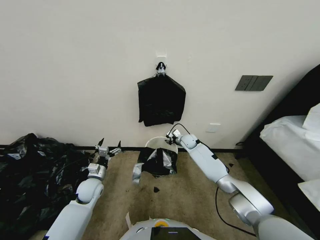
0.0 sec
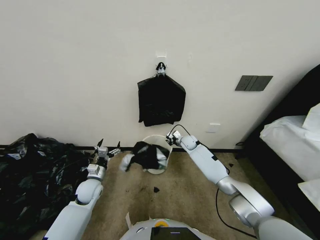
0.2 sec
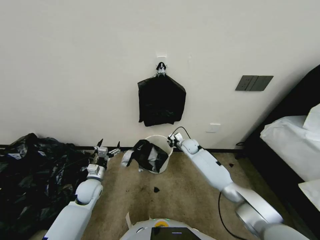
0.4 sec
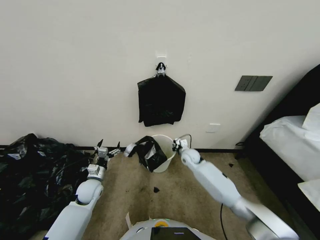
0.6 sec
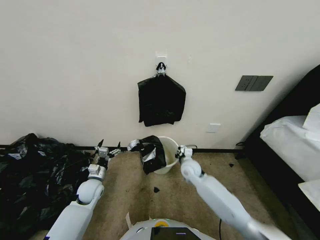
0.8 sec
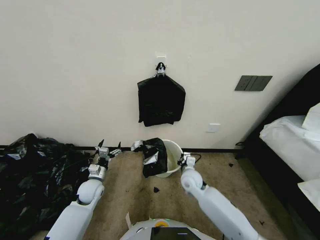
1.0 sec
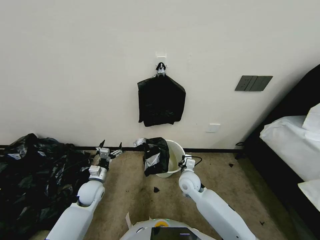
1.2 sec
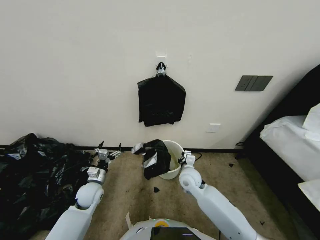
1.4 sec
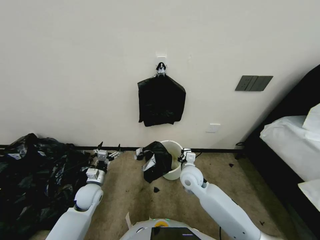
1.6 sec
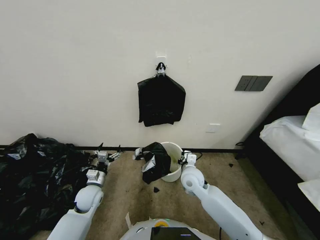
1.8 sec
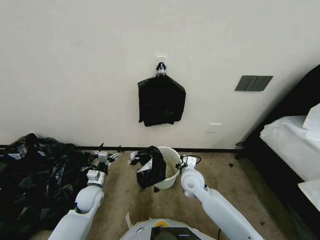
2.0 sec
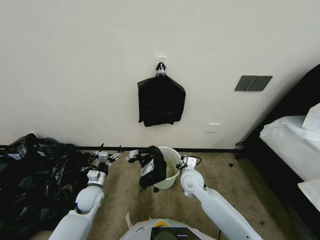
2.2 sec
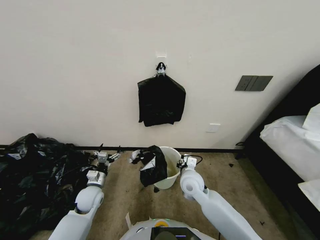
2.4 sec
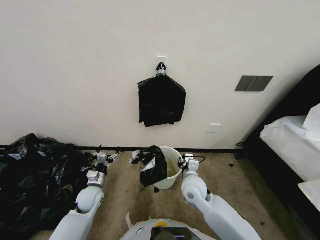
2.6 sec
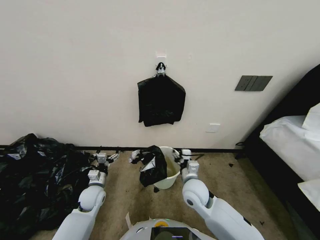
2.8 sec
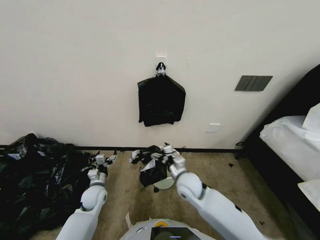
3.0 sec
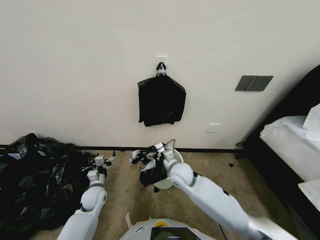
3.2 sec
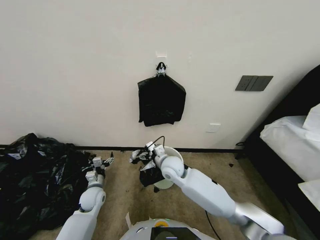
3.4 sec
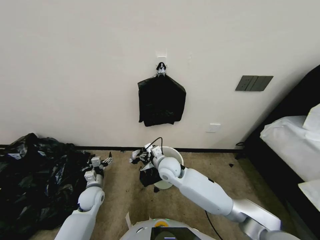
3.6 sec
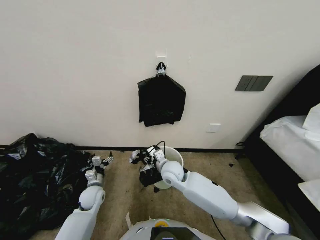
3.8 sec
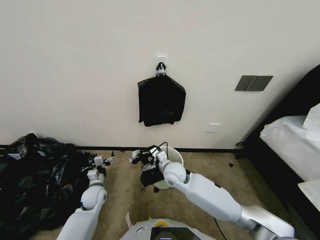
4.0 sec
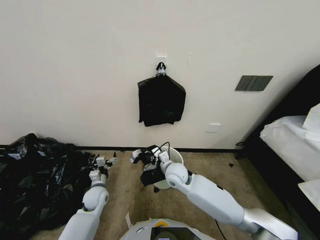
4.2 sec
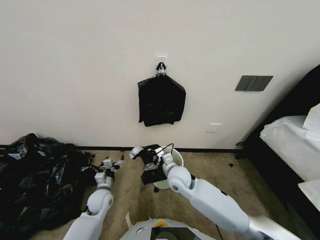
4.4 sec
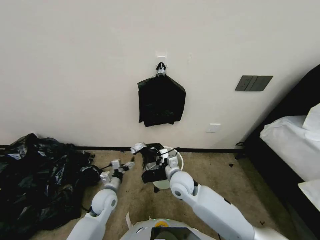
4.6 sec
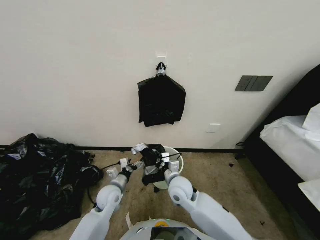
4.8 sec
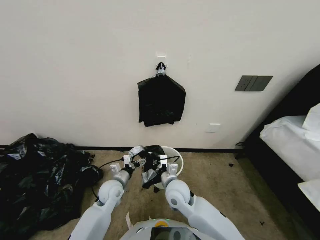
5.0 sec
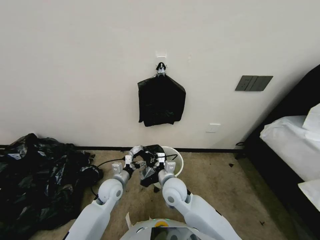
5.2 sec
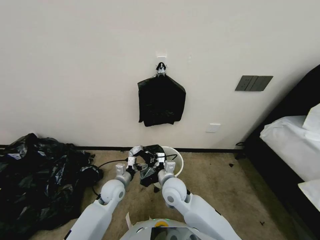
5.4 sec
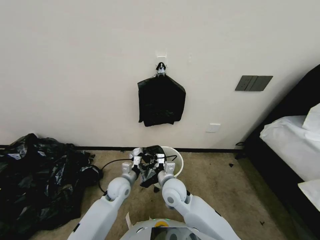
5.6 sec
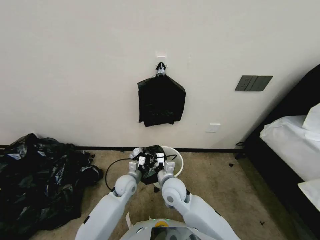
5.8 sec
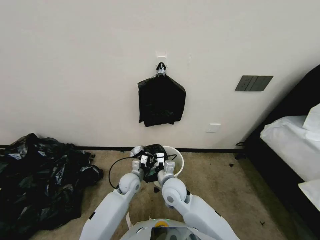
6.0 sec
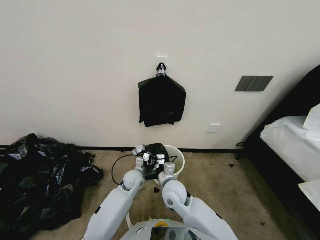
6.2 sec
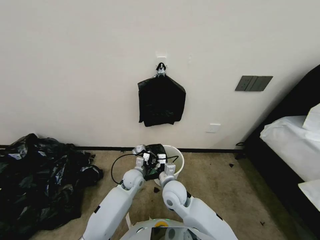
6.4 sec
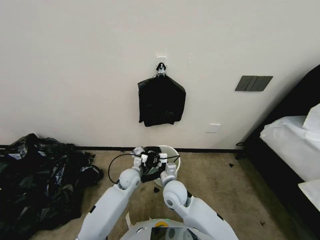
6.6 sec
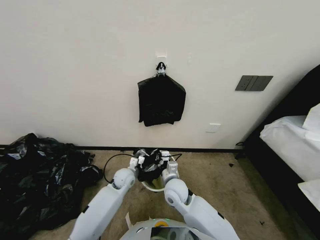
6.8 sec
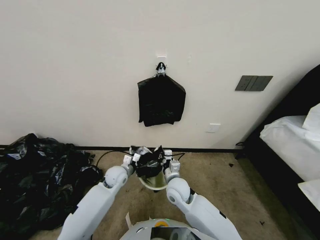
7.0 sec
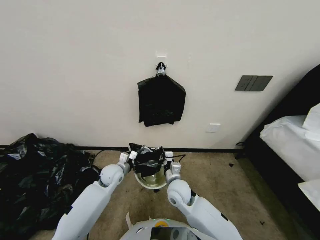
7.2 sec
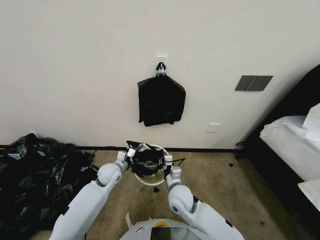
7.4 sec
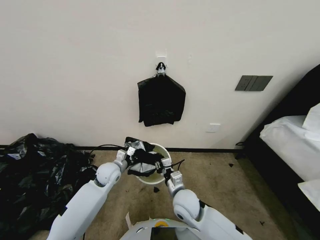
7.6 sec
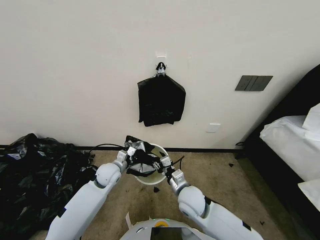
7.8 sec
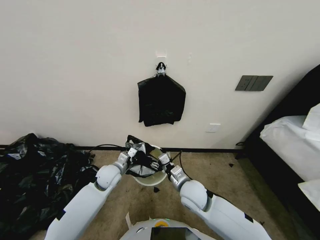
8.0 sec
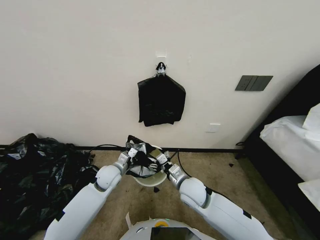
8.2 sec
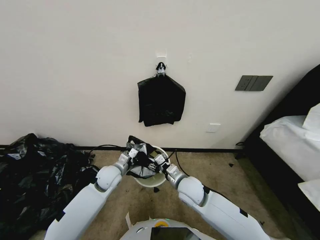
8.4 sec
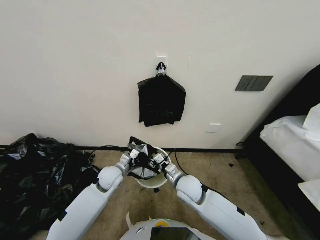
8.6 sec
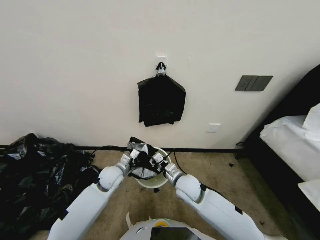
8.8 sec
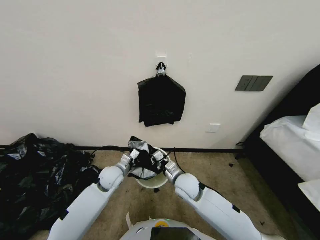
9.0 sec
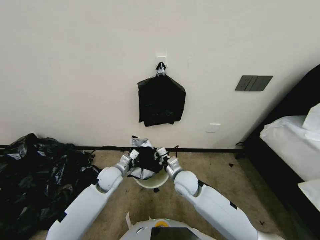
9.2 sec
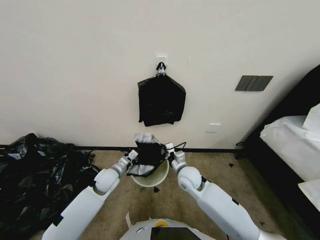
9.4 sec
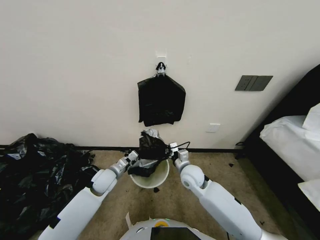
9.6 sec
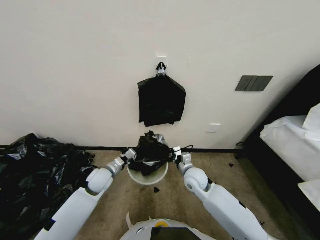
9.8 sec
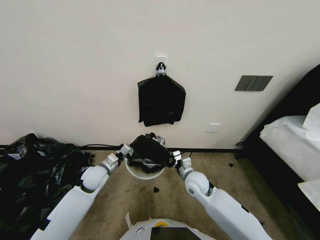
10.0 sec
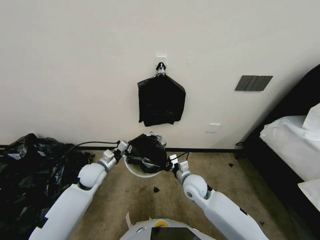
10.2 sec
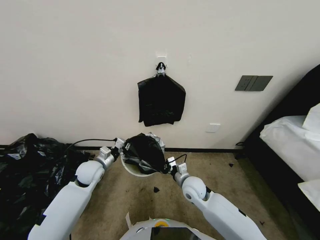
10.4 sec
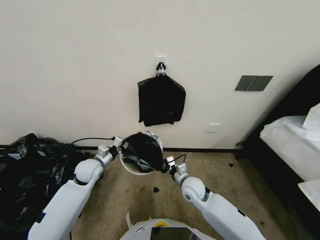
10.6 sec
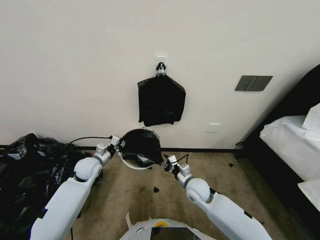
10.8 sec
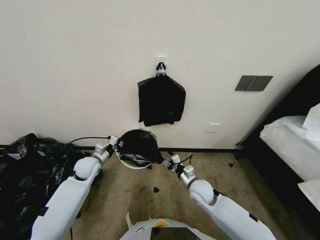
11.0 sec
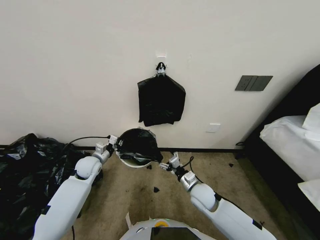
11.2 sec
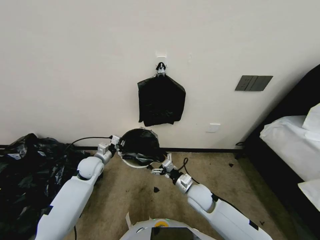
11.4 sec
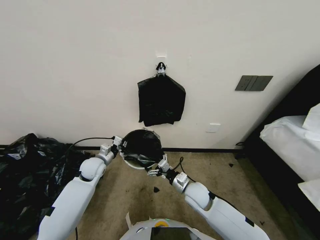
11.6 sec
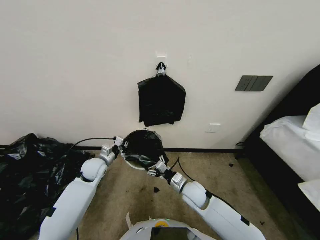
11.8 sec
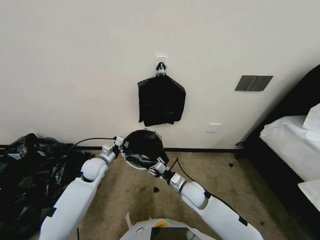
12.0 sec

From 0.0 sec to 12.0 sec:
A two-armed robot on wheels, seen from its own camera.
Task of the whole recording: Place a trash bag onto the trash bin.
From 0.0 sec to 1.6 sec: The right gripper shifts about 20 cm backward, and closes.
From 1.6 sec to 3.0 sec: The right gripper heads backward, covering approximately 5 cm, and opens.
From 3.0 sec to 4.4 sec: The right gripper is displaced forward and to the left by about 5 cm, and closes up.
From 4.4 sec to 6.0 sec: The left gripper goes roughly 15 cm to the right and forward. Meanwhile the right gripper goes about 5 cm backward.
From 6.0 sec to 7.6 sec: The right gripper shifts by approximately 5 cm. Meanwhile the left gripper travels to the left and upward by approximately 10 cm, and closes its fingers.
From 7.6 sec to 9.0 sec: The right gripper moves approximately 5 cm, and opens, then closes once more.
From 9.0 sec to 10.4 sec: The left gripper goes approximately 10 cm to the left.
From 10.4 sec to 12.0 sec: The right gripper opens up.

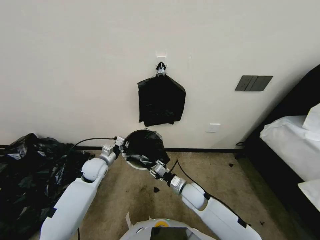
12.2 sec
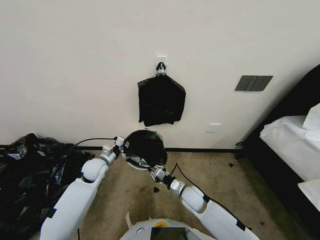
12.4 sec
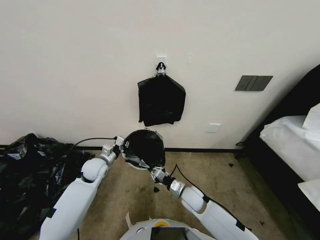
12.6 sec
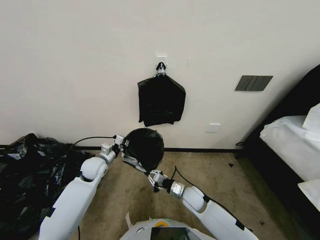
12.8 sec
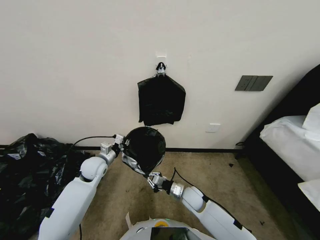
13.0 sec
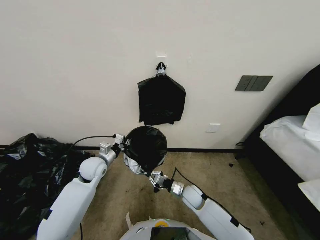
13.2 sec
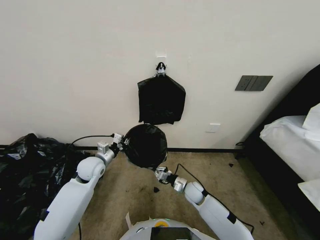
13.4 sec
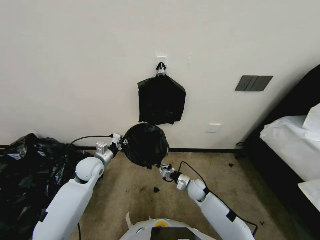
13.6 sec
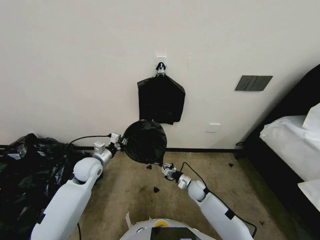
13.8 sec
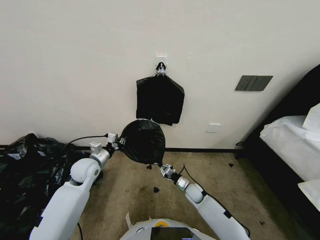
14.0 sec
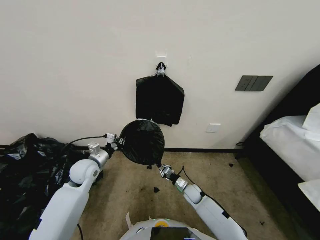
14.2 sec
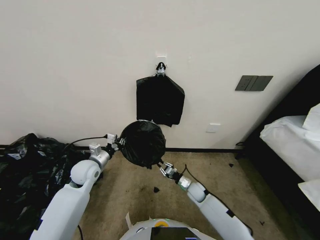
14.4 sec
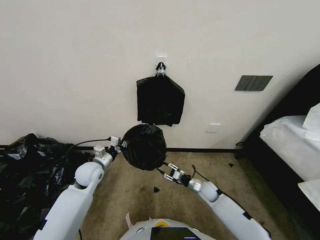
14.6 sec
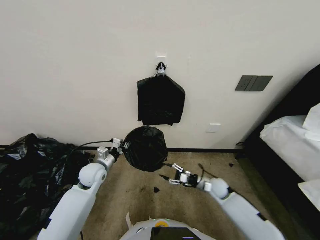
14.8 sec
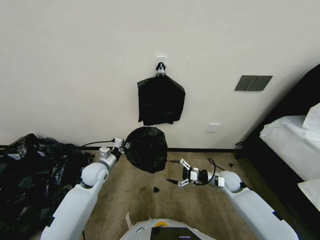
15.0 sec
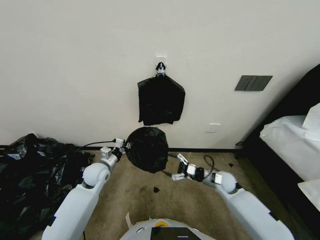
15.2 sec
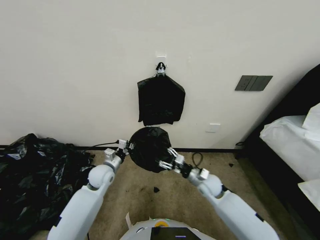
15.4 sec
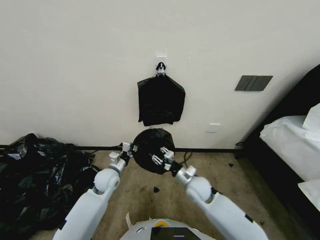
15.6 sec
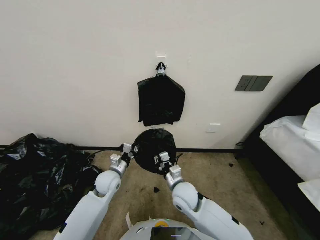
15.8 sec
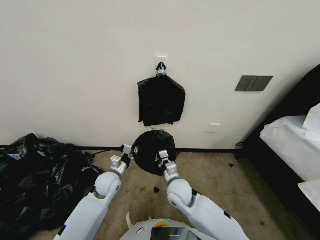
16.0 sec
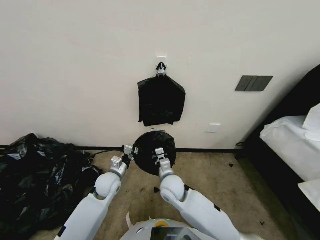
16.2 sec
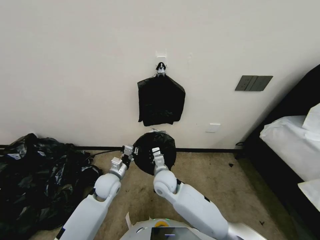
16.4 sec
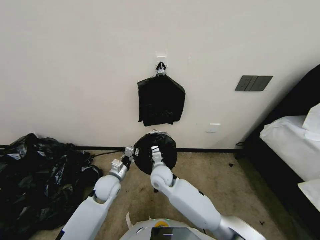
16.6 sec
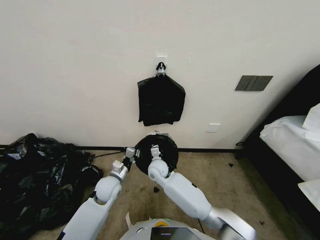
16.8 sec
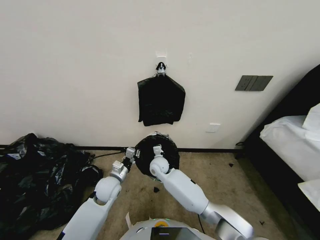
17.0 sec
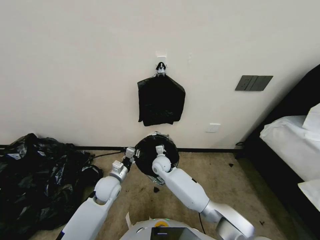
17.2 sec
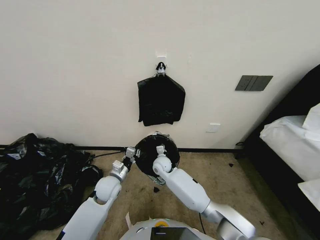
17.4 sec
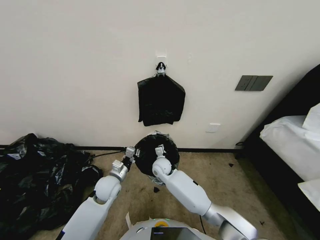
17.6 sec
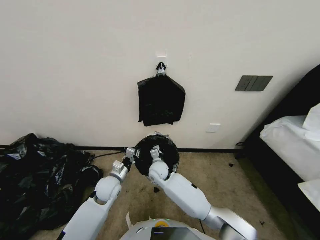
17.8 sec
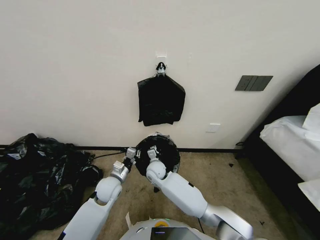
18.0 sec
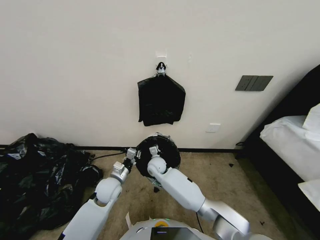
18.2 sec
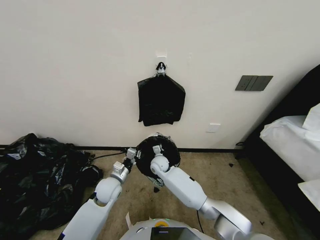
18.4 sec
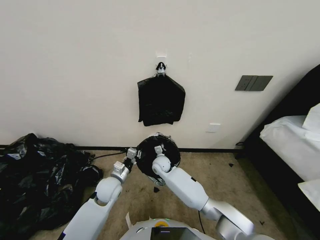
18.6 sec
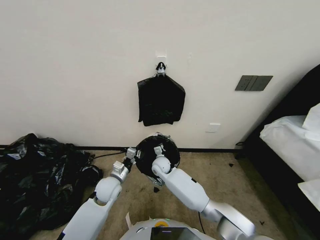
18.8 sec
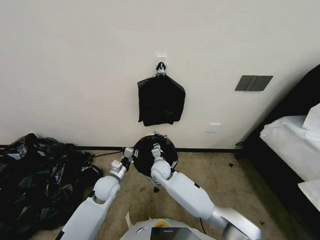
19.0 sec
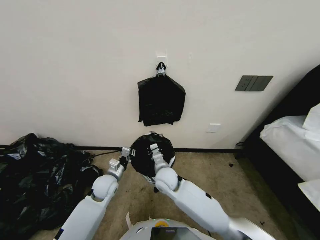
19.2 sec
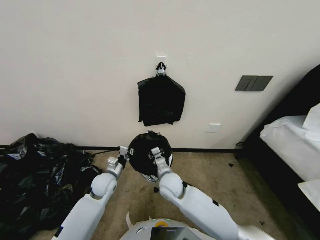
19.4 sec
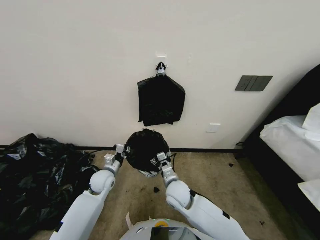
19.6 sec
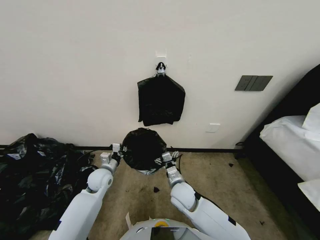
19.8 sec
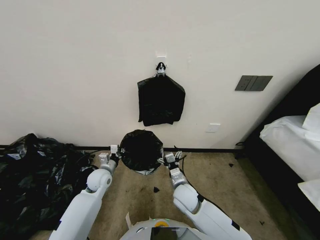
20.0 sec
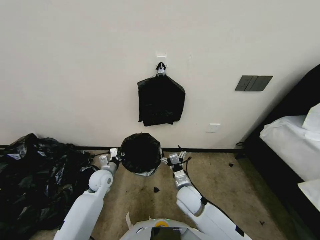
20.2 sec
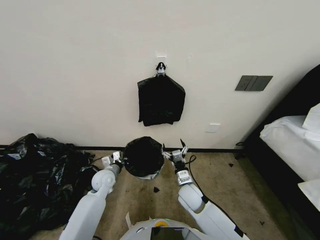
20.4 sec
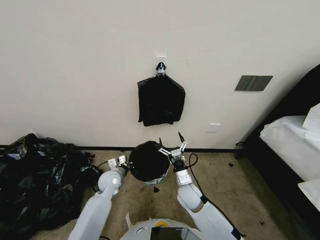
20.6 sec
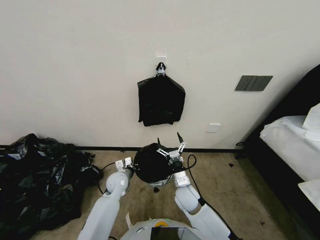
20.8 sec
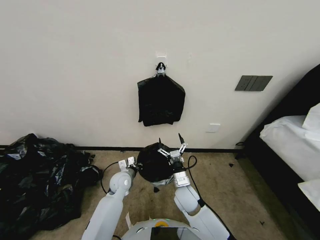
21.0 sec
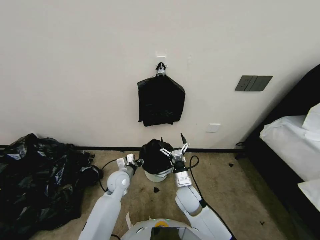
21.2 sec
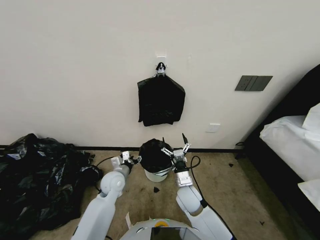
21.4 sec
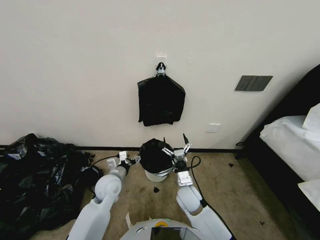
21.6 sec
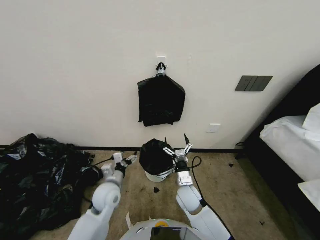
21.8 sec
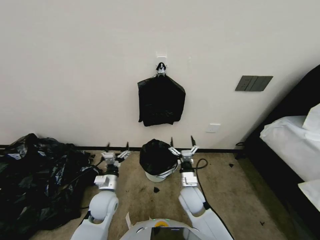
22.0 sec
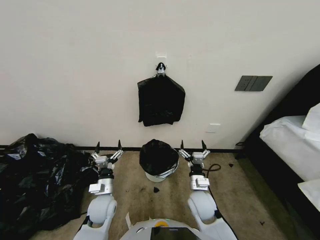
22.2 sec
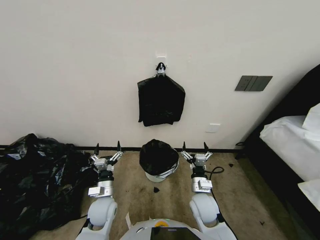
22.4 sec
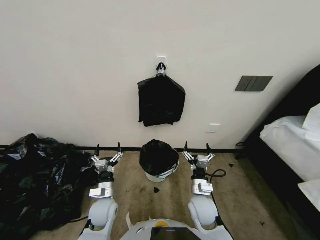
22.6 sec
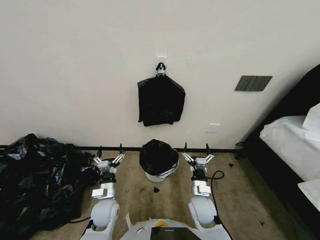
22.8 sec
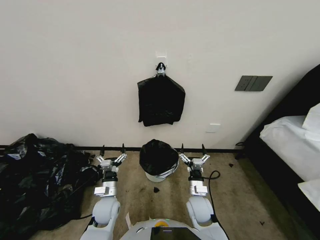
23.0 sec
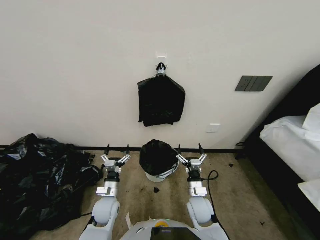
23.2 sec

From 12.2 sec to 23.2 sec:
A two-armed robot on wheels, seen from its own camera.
Task of the whole recording: Place a trash bag onto the trash bin.
From 12.2 sec to 13.8 sec: The right gripper shifts some 15 cm downward, to the right and forward, and closes its fingers.
From 13.8 sec to 15.4 sec: The right gripper shifts approximately 10 cm upward, and opens its fingers, while the left gripper moves about 5 cm.
From 15.4 sec to 17.0 sec: The right gripper heads to the left, covering roughly 25 cm, and closes up. The left gripper shifts by roughly 5 cm.
From 17.0 sec to 18.4 sec: The grippers make only small movements.
From 18.4 sec to 20.0 sec: The left gripper shifts some 5 cm to the left, while the right gripper shifts about 20 cm backward and to the right, and opens its fingers.
From 20.0 sec to 21.6 sec: The left gripper travels to the right by about 5 cm, and opens.
From 21.6 sec to 23.2 sec: The left gripper is displaced backward and downward by approximately 10 cm. The right gripper moves approximately 5 cm.
